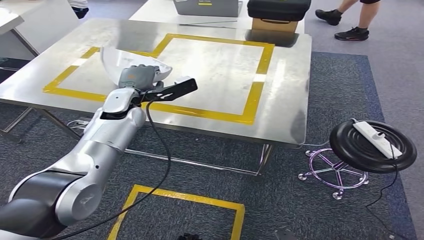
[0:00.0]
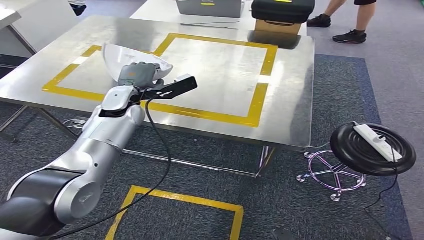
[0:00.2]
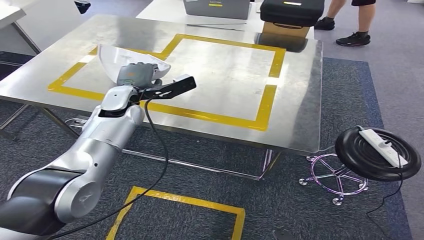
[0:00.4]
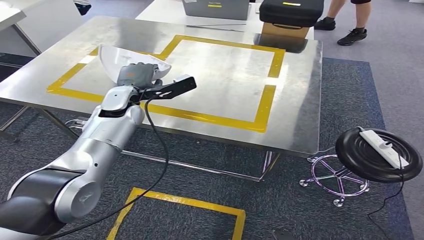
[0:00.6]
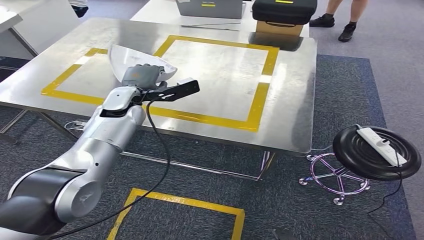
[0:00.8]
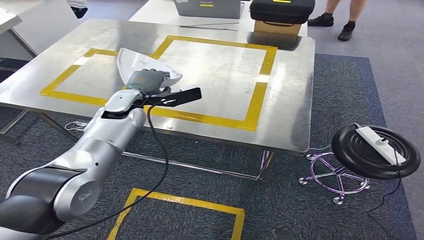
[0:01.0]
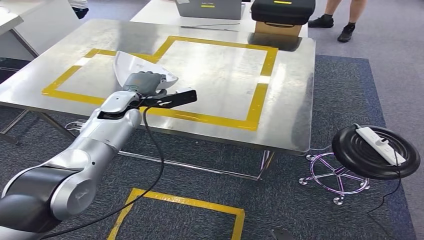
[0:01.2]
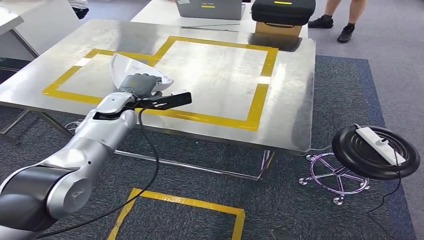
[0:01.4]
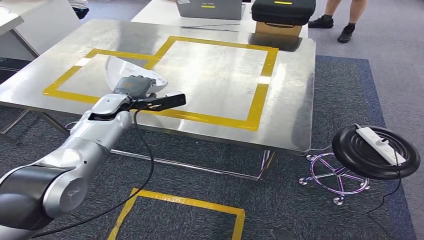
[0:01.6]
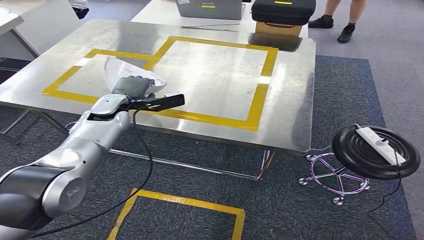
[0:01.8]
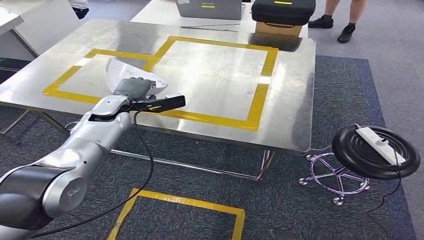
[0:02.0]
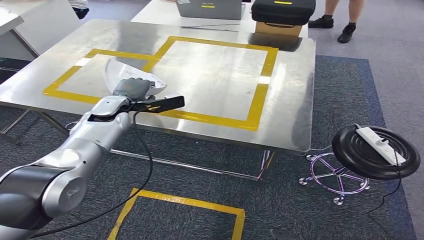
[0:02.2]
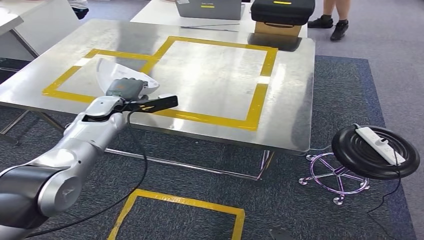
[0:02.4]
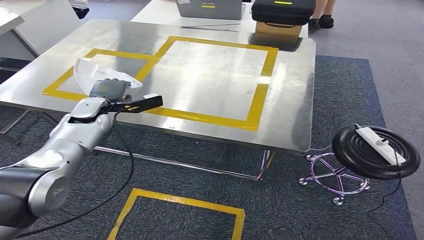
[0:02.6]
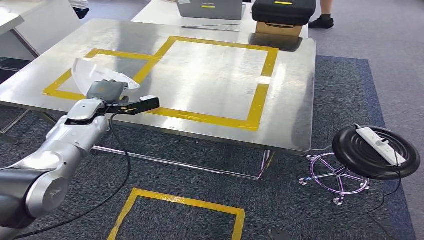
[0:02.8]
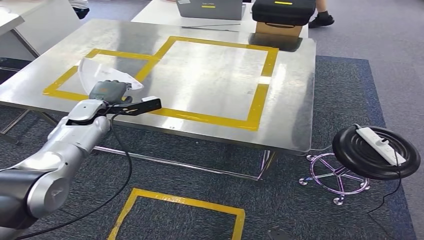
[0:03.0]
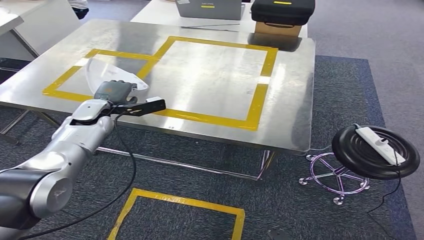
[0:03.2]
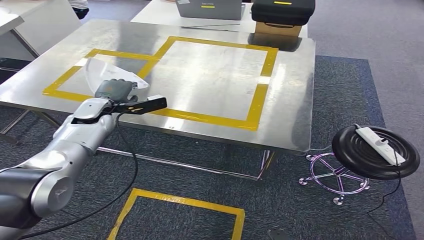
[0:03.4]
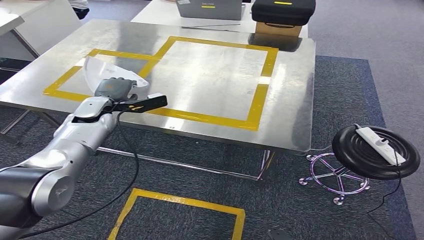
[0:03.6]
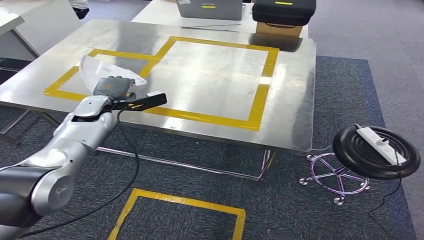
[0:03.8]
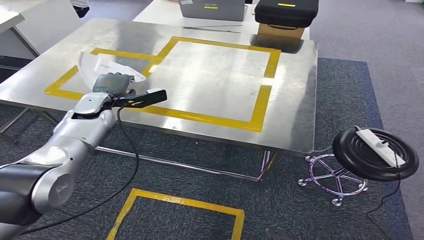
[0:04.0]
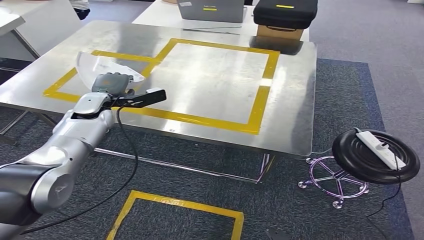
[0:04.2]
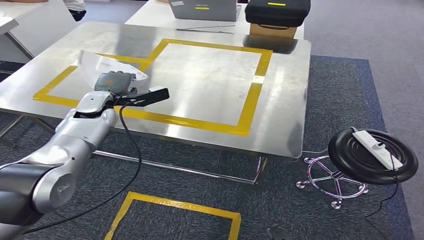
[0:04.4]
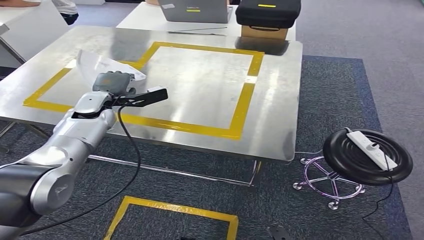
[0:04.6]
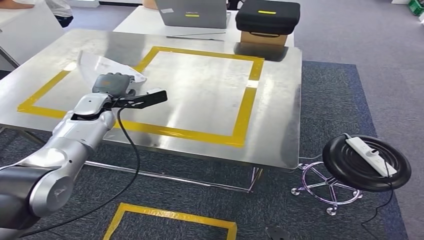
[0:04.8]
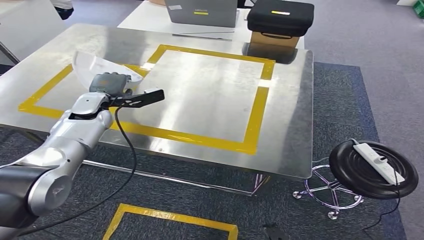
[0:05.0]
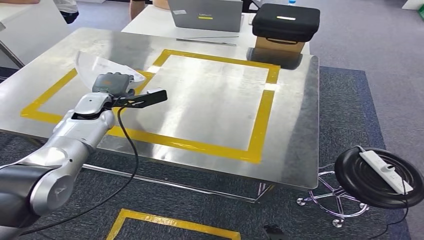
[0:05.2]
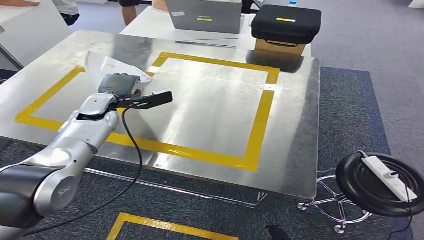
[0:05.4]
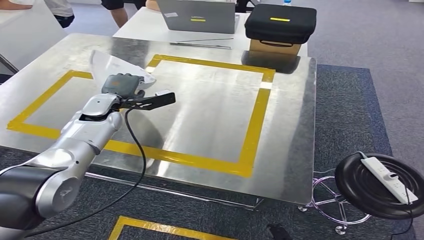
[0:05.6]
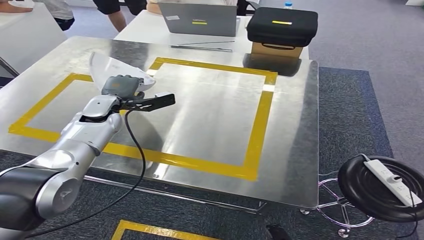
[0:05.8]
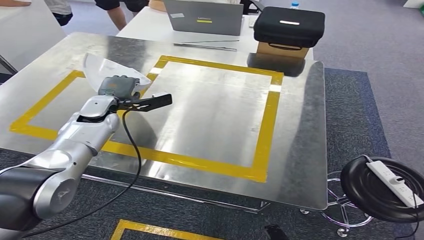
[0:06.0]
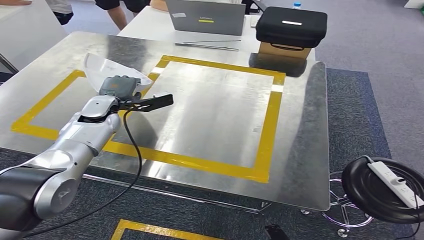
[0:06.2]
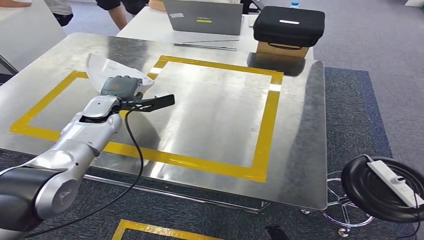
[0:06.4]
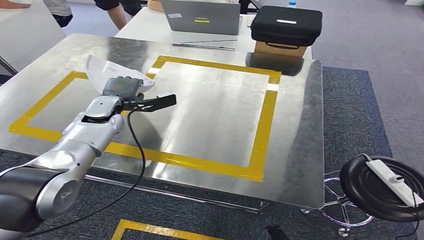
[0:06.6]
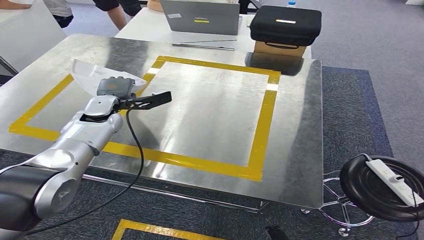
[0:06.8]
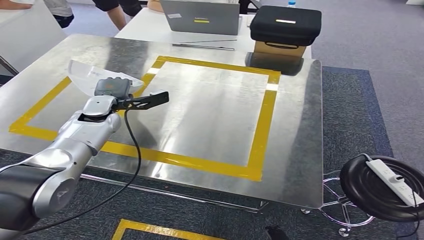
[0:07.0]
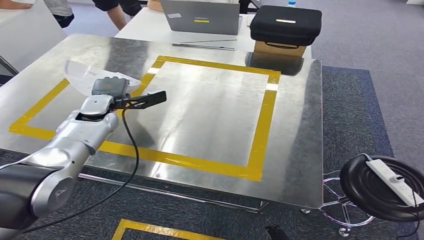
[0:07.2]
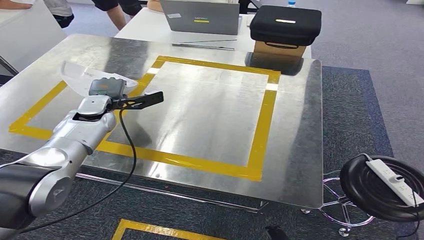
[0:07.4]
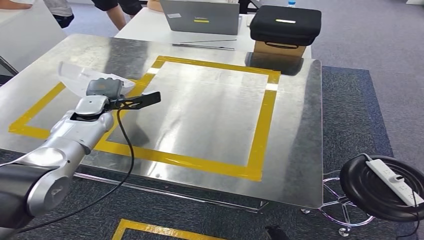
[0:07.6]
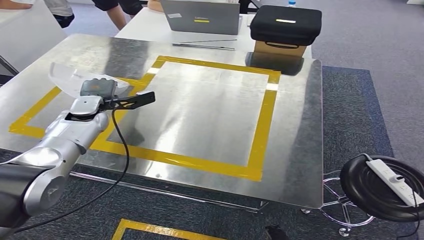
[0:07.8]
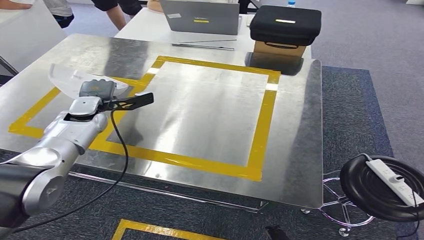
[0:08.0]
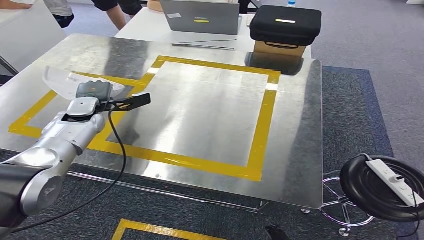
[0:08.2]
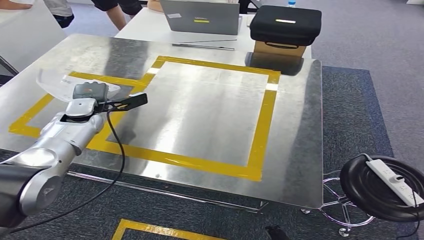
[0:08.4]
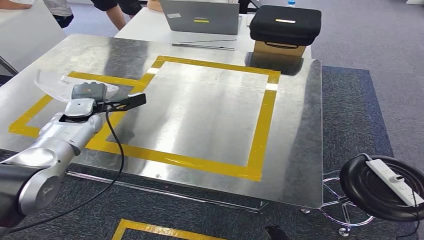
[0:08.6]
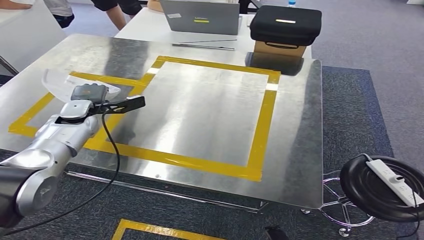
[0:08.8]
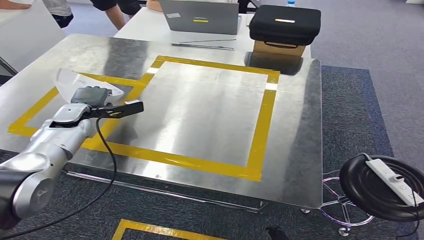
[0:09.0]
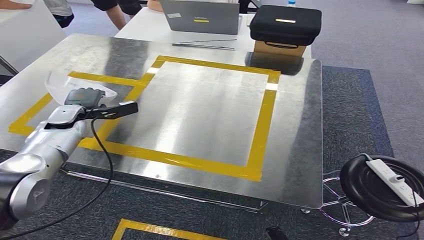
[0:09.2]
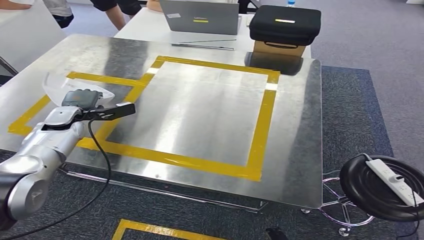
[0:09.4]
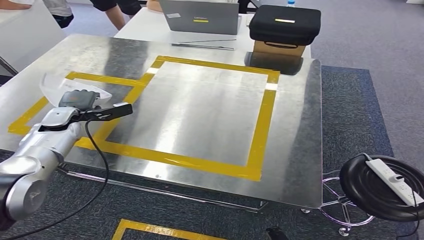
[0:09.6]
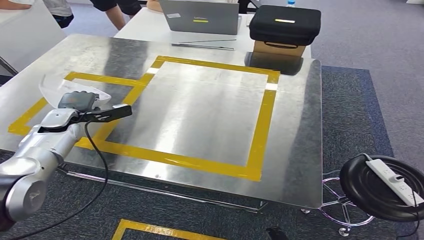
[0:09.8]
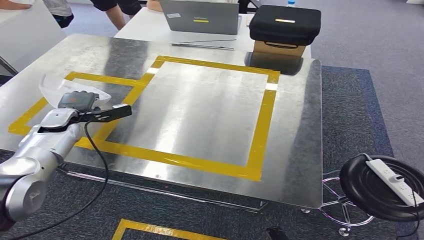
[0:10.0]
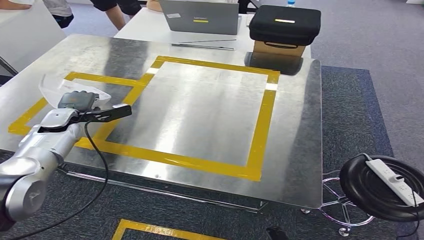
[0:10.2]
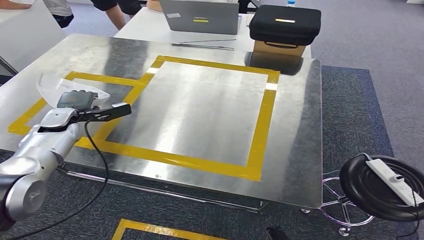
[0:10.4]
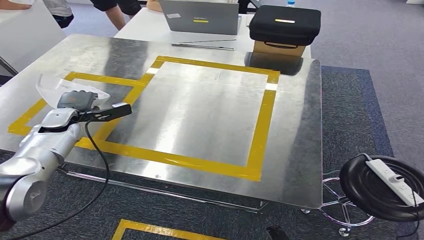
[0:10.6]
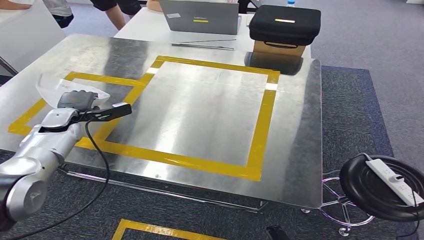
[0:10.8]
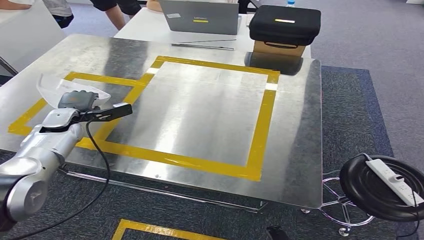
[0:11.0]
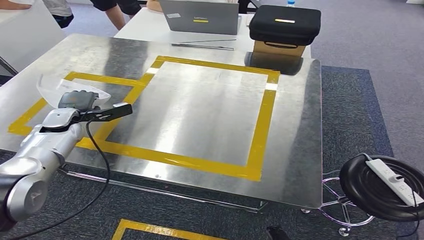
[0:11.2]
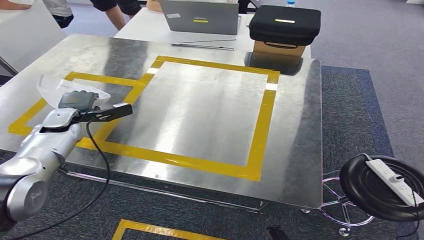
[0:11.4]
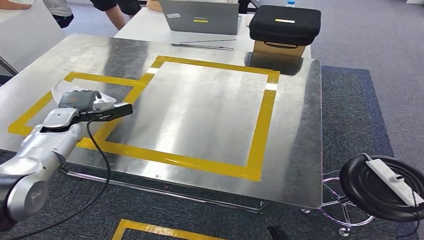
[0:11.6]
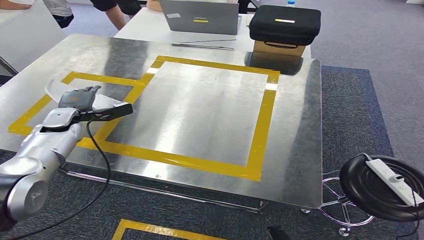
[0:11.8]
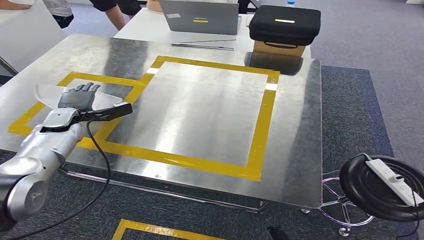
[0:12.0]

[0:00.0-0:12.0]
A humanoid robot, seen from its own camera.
Step, 0:00.0 to 0:03.4: Move the small parts to the workbench.
0:01.6 to 0:03.0: The left hand heads to the left, covering approximately 5 cm.
0:06.0 to 0:07.6: The hands stay close to where they were, moving slightly.
0:07.6 to 0:09.0: The left hand is displaced to the left by approximately 5 cm.
0:09.0 to 0:10.4: The hands move only a little.
0:10.4 to 0:12.0: Both hands stay put.

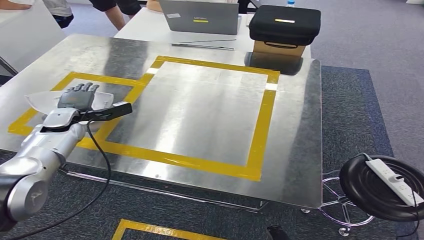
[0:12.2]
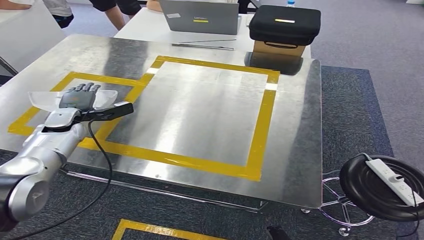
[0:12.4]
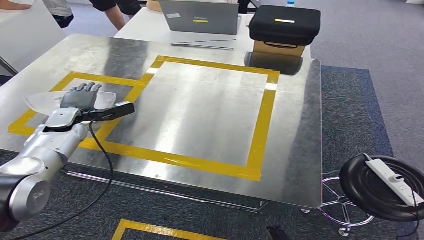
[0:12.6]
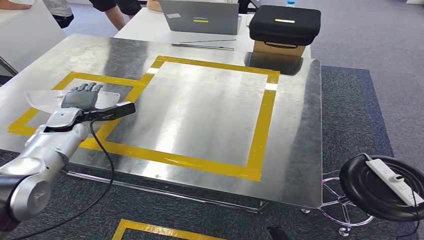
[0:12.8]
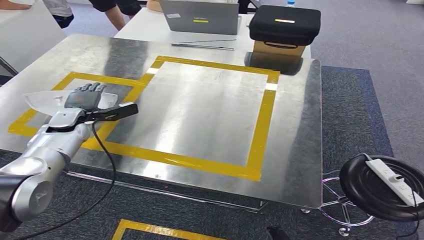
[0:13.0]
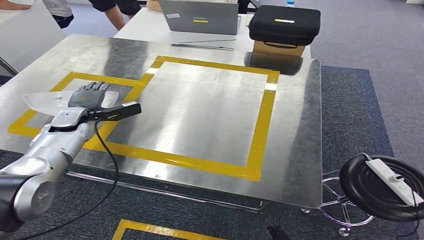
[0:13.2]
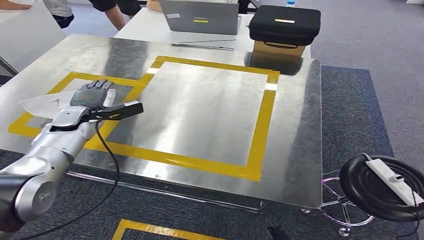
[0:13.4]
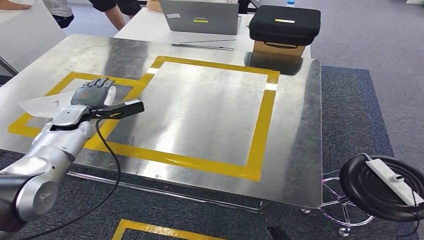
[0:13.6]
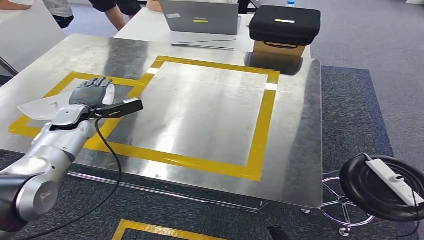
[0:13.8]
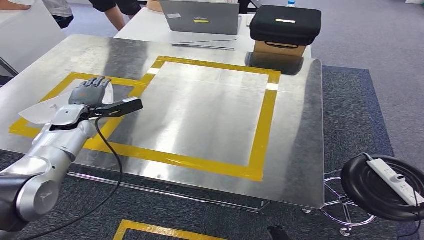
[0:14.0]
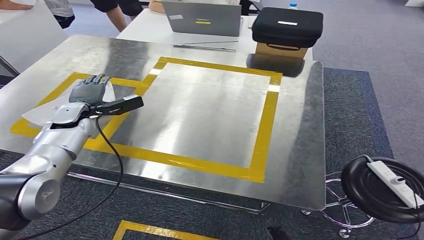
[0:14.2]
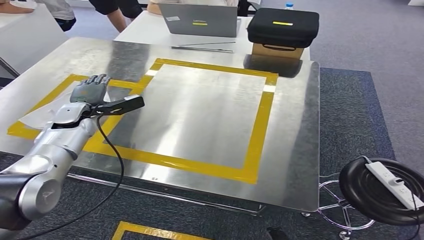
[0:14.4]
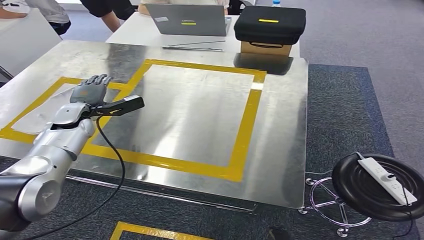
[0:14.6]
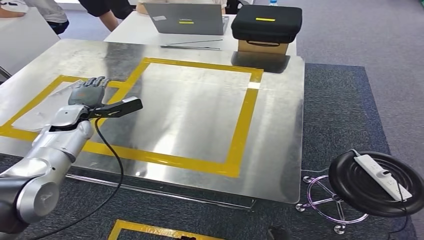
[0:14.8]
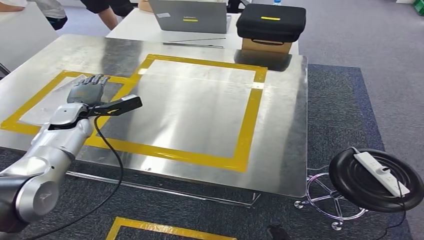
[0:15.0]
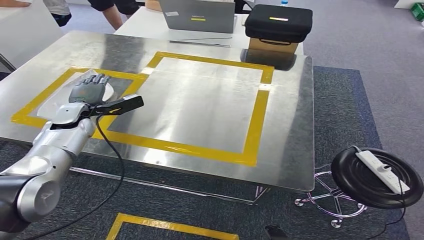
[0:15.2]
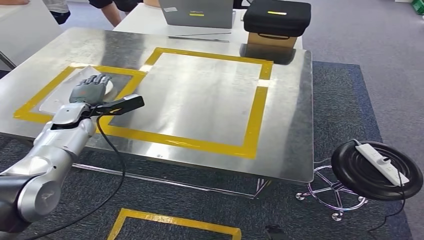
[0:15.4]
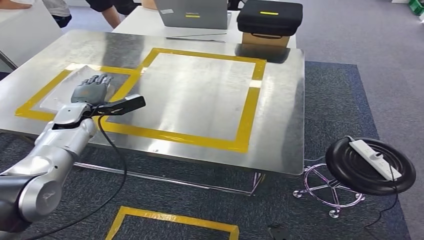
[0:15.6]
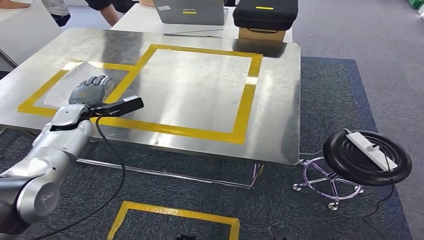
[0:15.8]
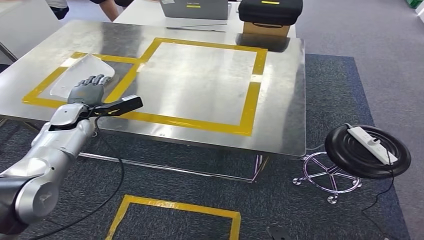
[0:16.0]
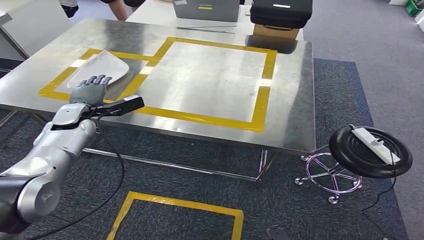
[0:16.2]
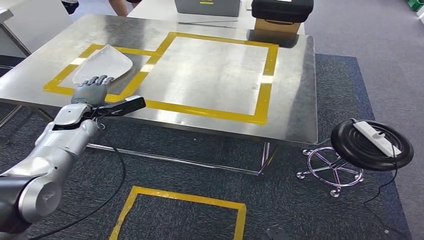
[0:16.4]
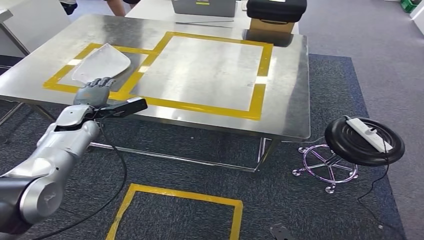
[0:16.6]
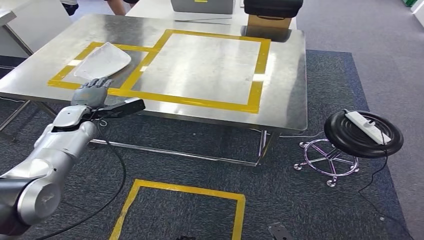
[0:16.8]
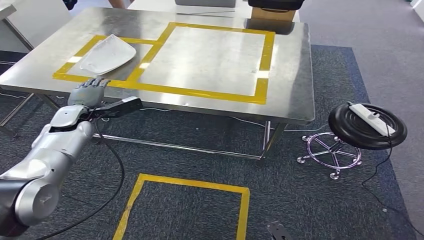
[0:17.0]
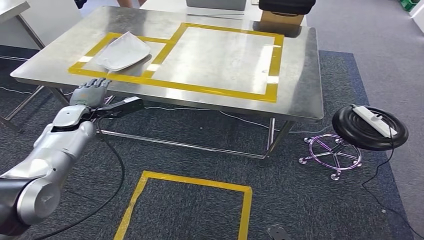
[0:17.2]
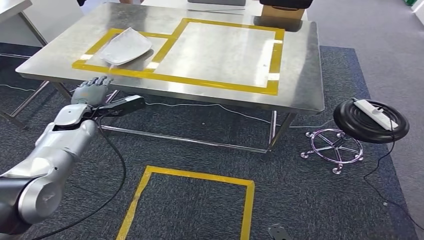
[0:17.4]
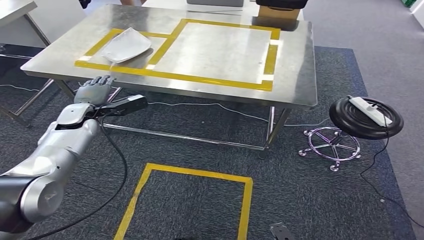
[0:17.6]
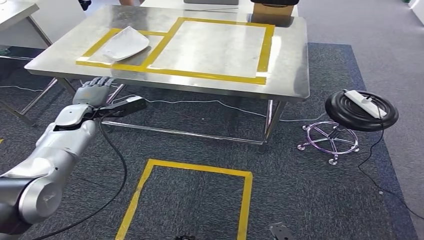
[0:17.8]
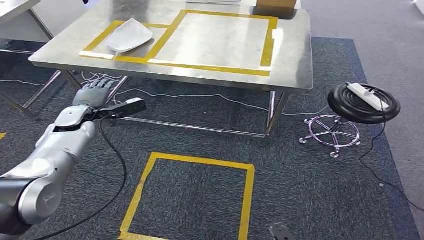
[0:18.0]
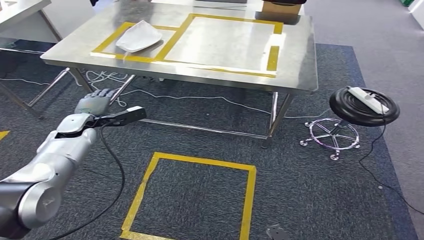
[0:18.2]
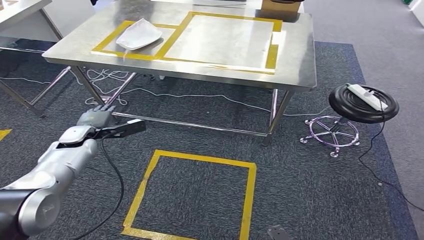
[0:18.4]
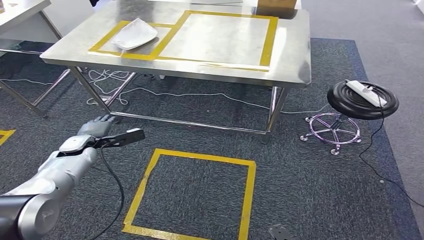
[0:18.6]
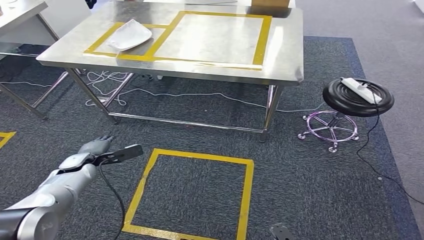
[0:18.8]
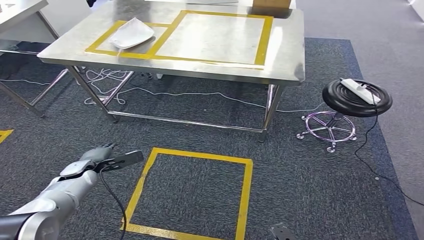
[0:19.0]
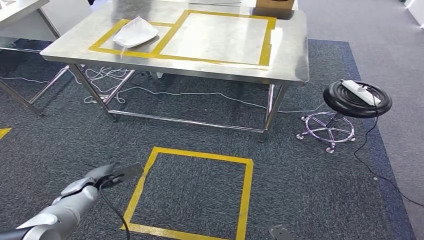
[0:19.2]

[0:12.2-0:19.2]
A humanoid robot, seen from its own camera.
Step, 0:12.2 to 0:17.0: Insert the small parts into the corresponding slots on the workbench.
0:12.2 to 0:13.6: The hands stay close to where they were, moving slightly.
